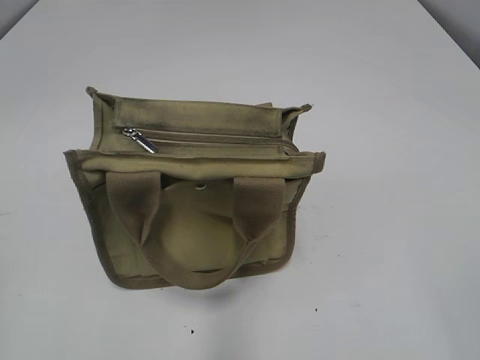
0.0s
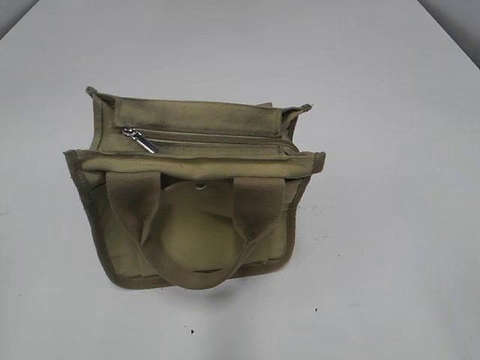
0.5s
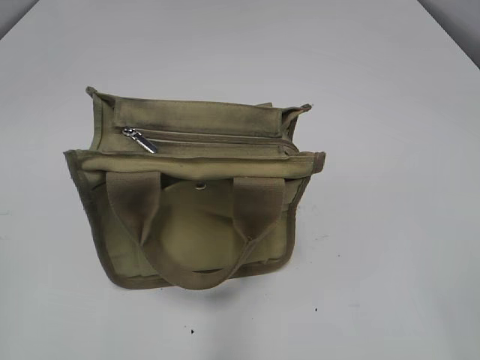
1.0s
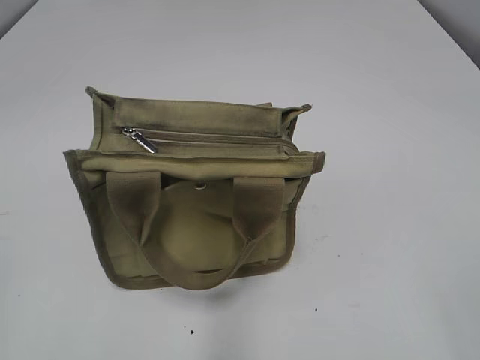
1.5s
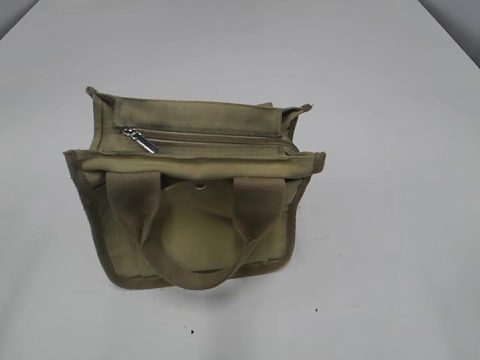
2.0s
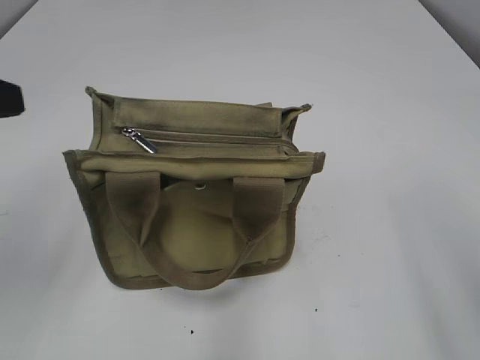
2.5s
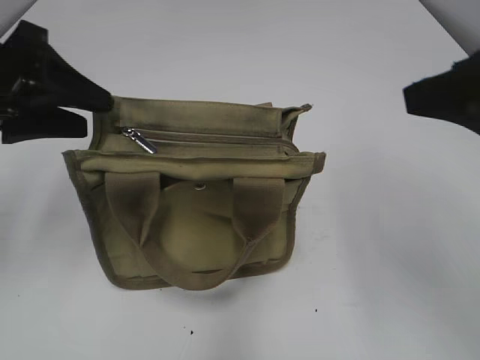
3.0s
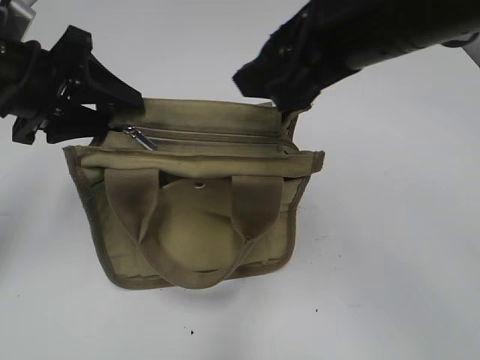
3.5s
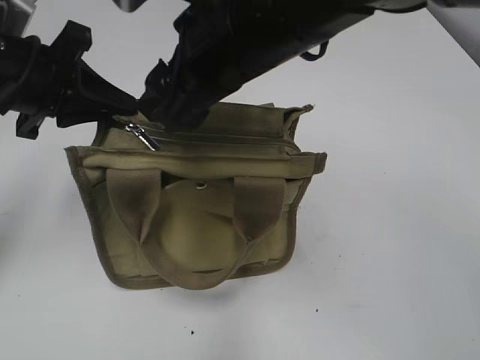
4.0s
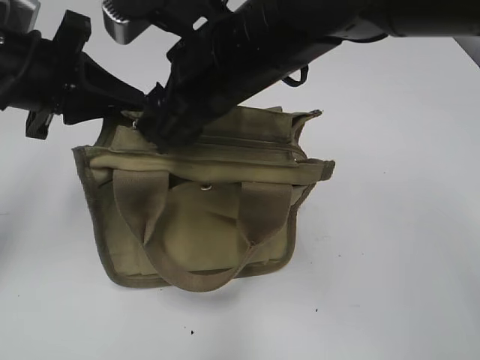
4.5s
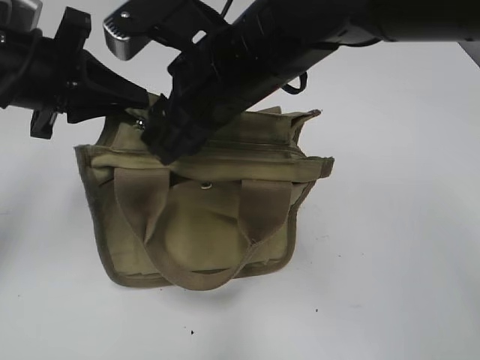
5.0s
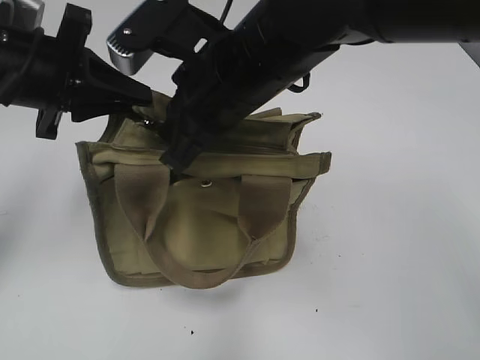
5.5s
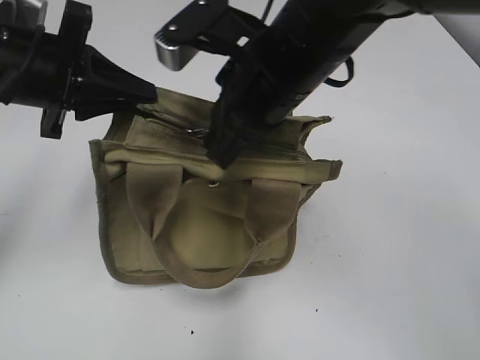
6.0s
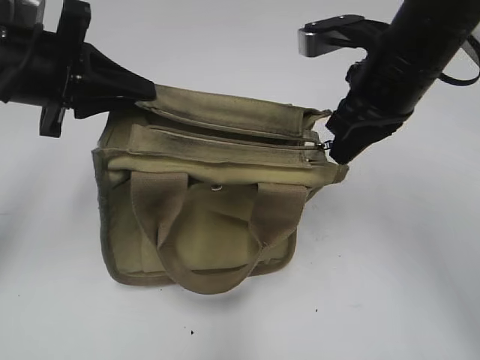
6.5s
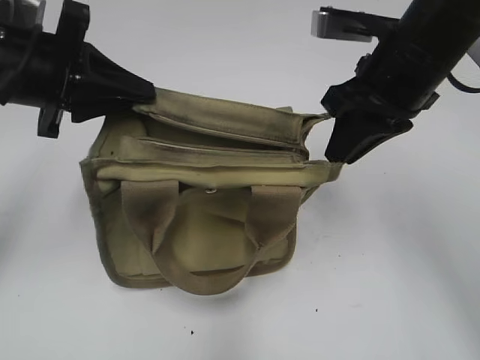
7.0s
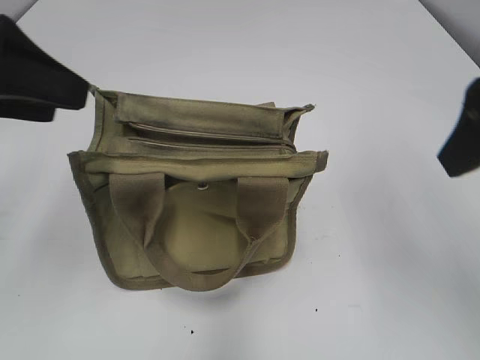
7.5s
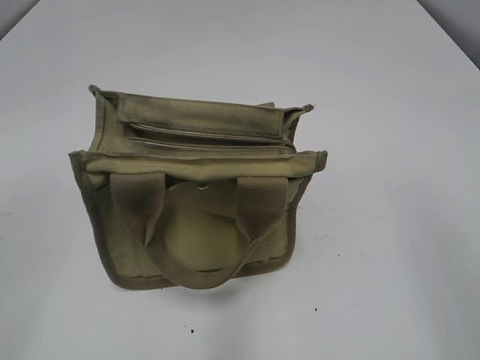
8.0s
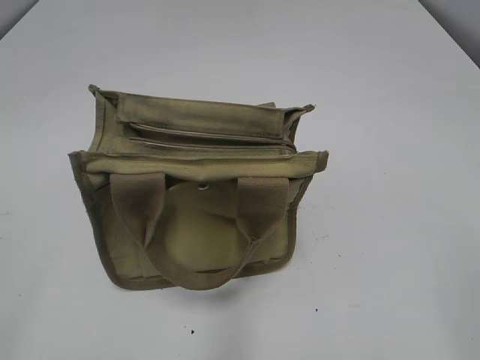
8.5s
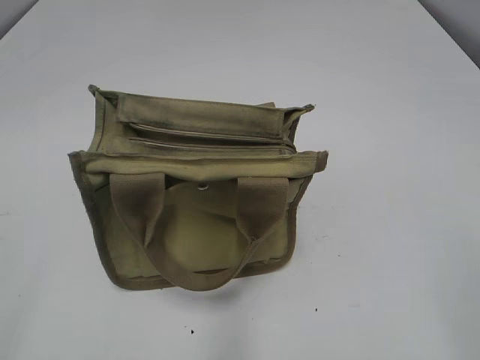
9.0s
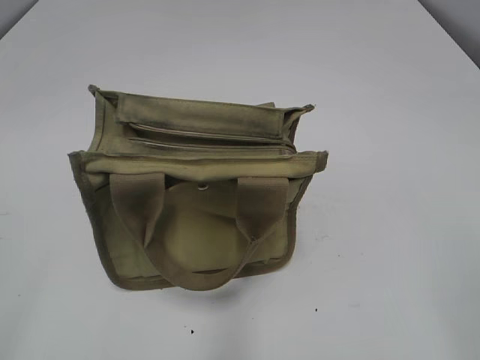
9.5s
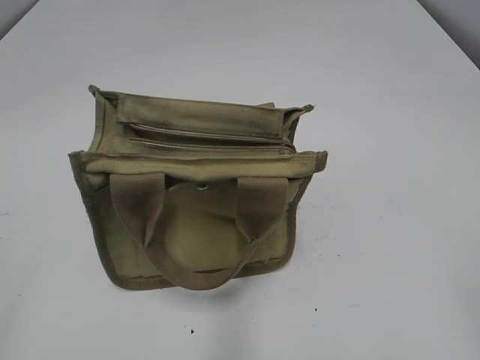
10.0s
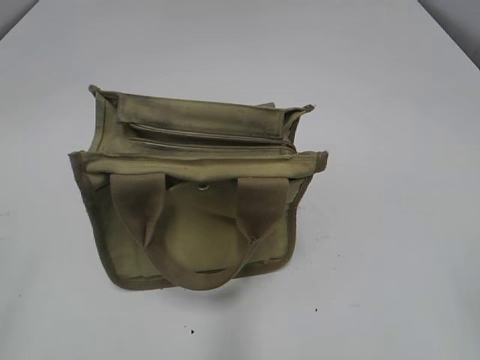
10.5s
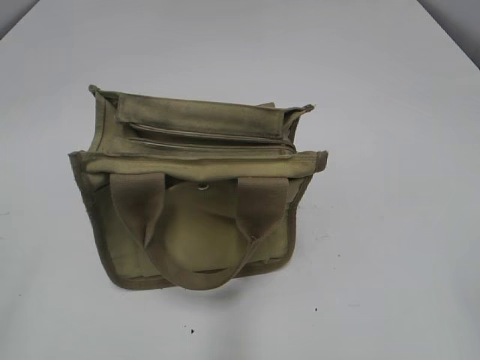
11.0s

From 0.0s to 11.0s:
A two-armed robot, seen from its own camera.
Step, from 0.0s to 6.5s: Pull open the zipper with your right hand.
From 2.0s to 3.5s: The right gripper shifts some 30 cm forward and to the left; the left gripper is displaced forward by some 25 cm.
From 3.5s to 5.5s: The left gripper closes up. The right gripper is displaced to the left and downward by approximately 10 cm, and closes.
From 5.5s to 7.5s: The left gripper moves backward and upward, about 10 cm, and opens its fingers; the right gripper travels to the right by approximately 20 cm, and opens.
From 7.5s to 9.0s: Both grippers move backward, about 20 cm.

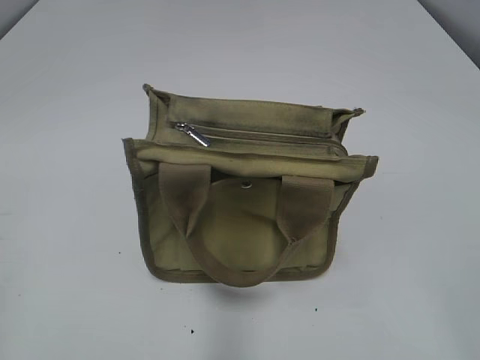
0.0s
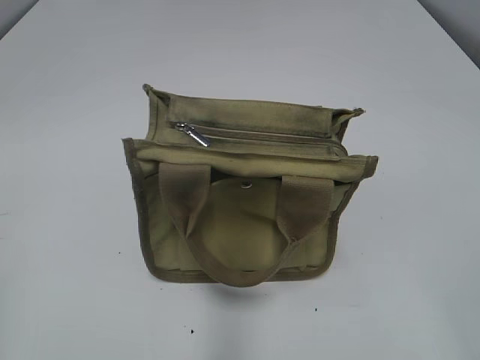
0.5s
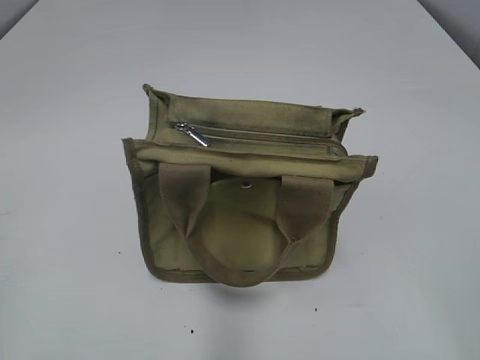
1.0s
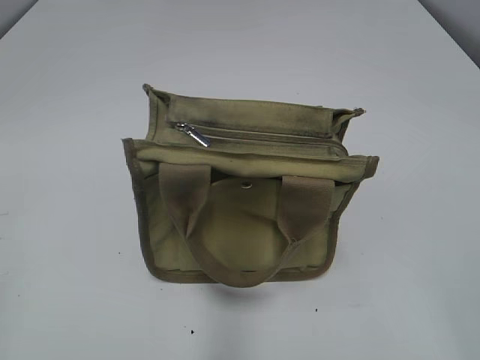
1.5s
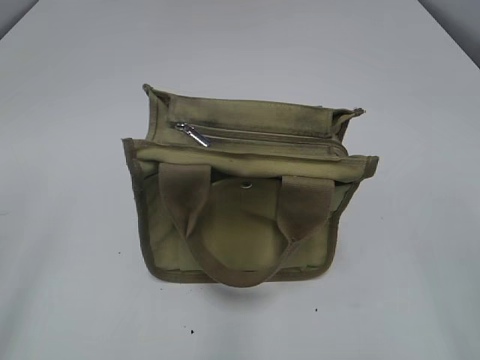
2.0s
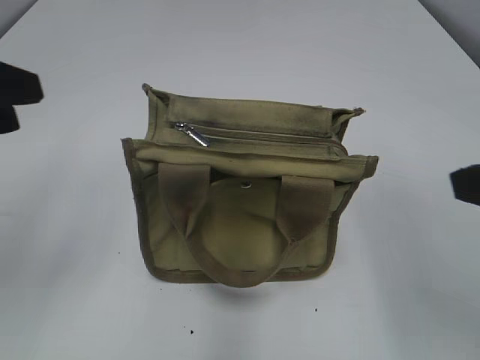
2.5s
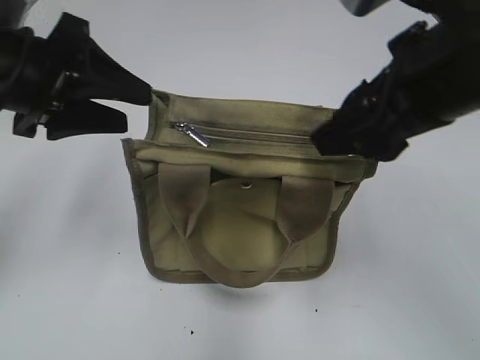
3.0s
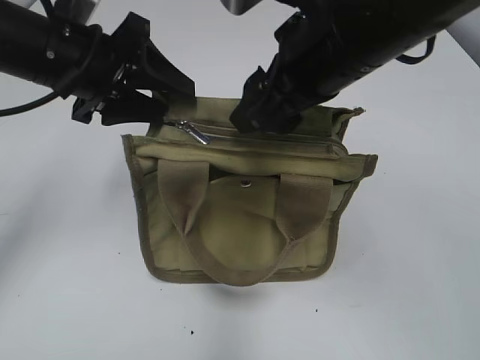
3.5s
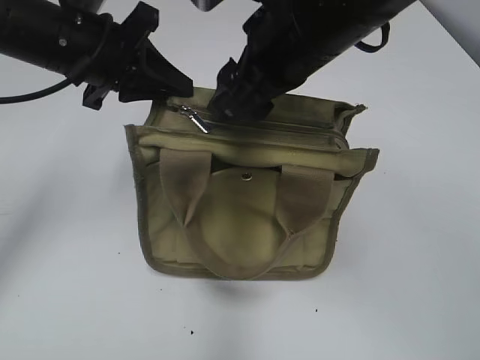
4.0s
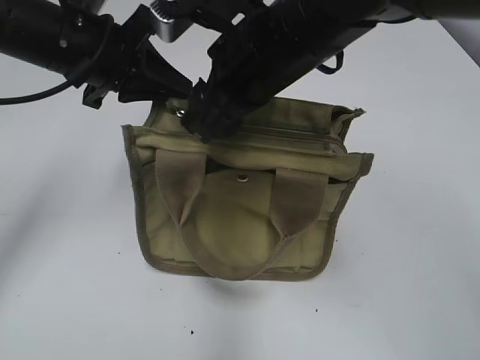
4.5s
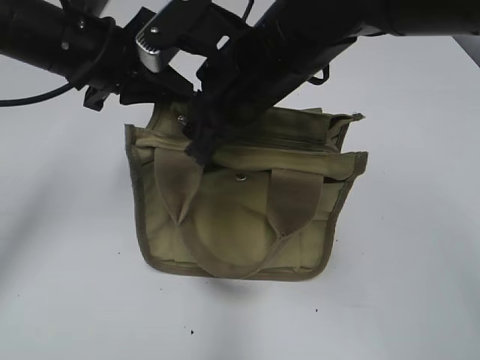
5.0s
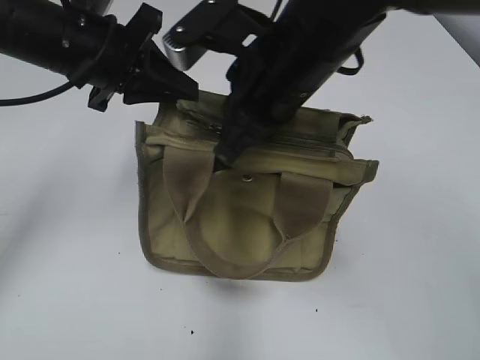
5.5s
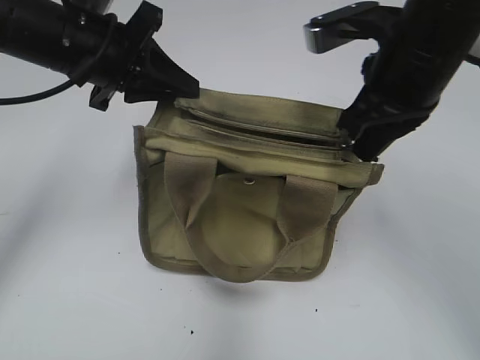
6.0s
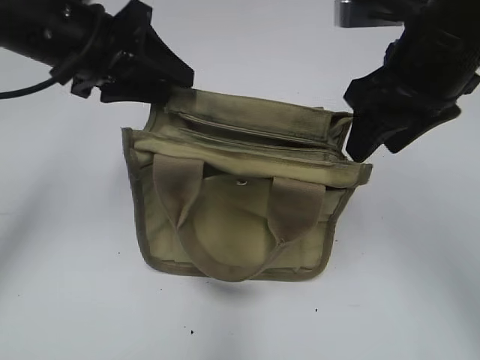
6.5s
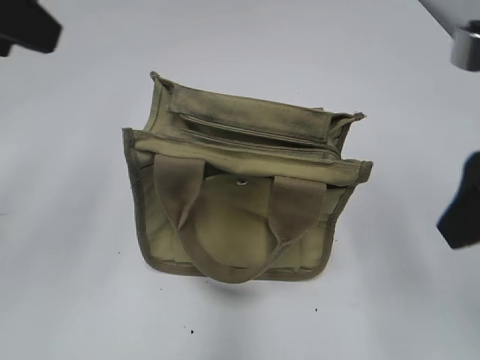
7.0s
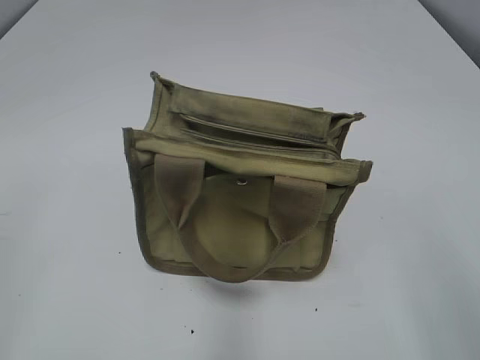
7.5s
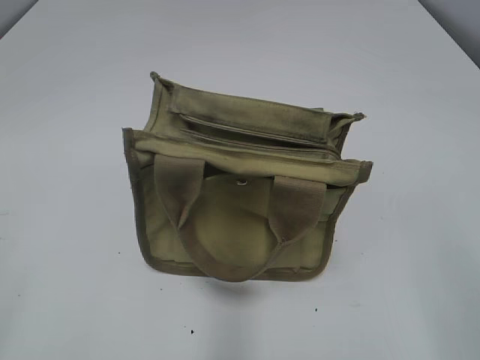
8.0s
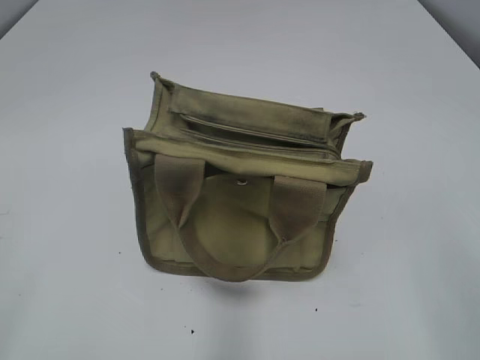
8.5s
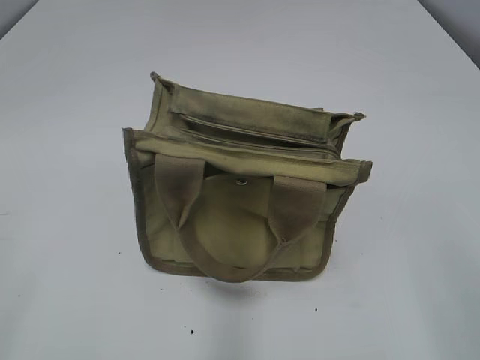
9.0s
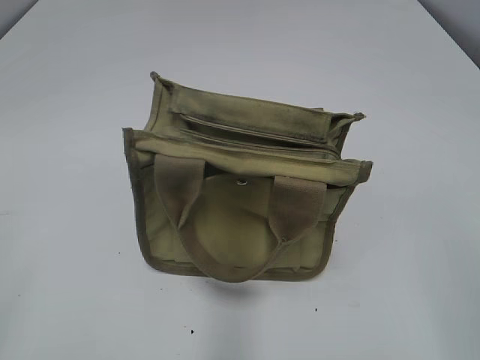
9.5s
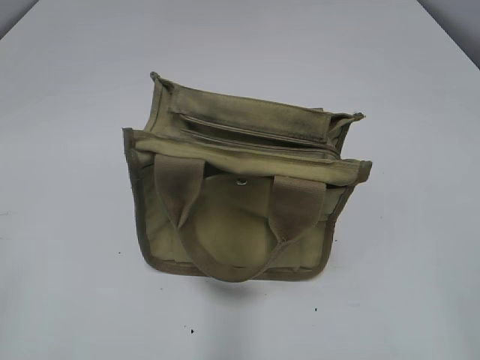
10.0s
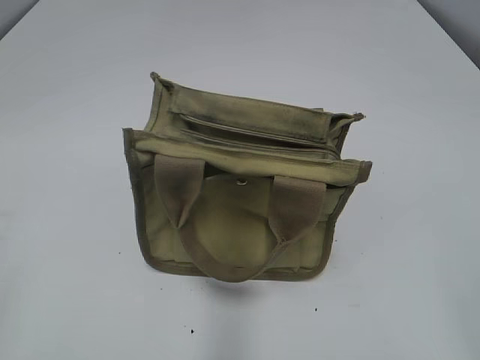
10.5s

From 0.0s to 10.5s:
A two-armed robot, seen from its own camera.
Step, from 0.0s to 6.0s: Pull open the zipper with your right hand.
From 2.0s to 4.0s: The left gripper is displaced forward and to the right by about 35 cm, and closes its fingers. The right gripper goes some 35 cm forward and to the left.
From 4.0s to 6.5s: The right gripper goes approximately 10 cm to the right, and closes, then opens again.
From 6.5s to 8.5s: The right gripper travels backward by approximately 25 cm, and opens up. The left gripper moves backward and to the left, some 35 cm, and opens its fingers.

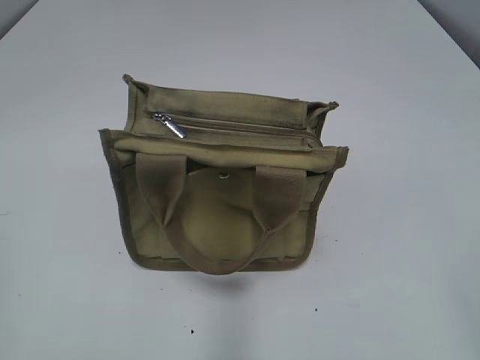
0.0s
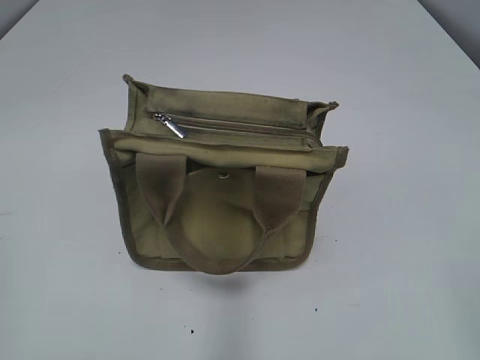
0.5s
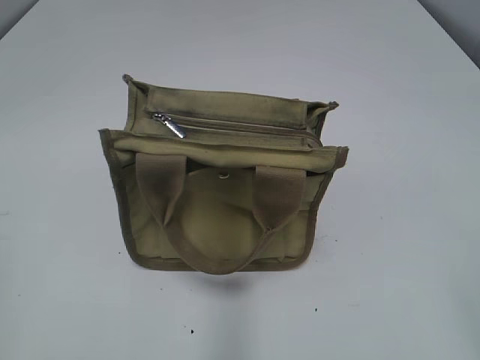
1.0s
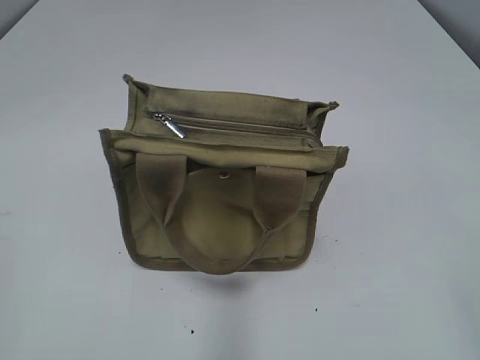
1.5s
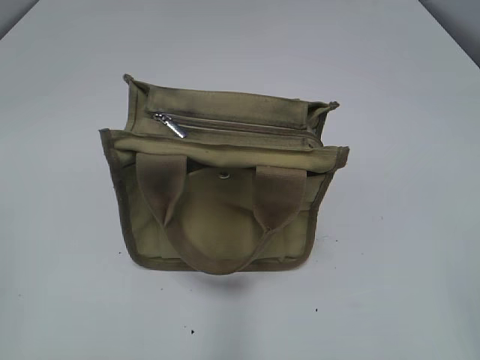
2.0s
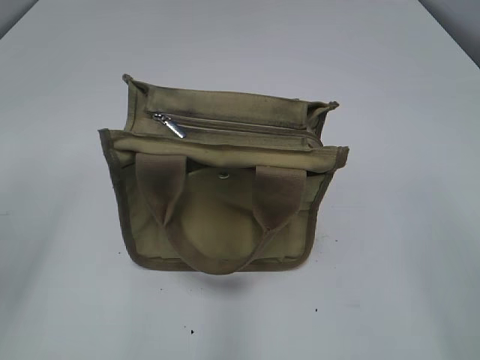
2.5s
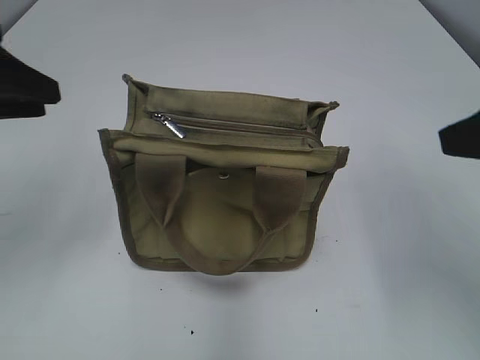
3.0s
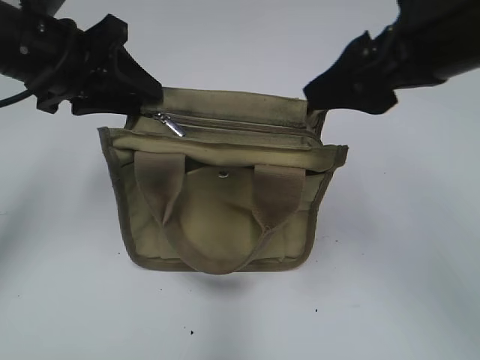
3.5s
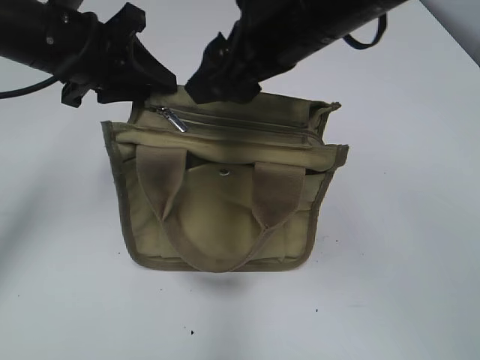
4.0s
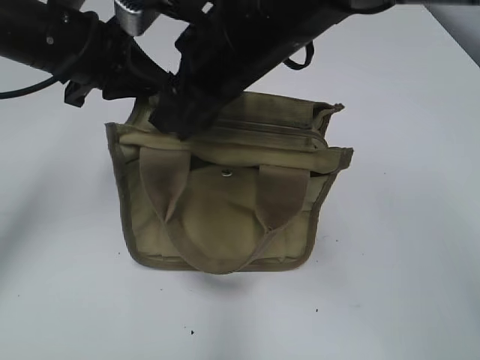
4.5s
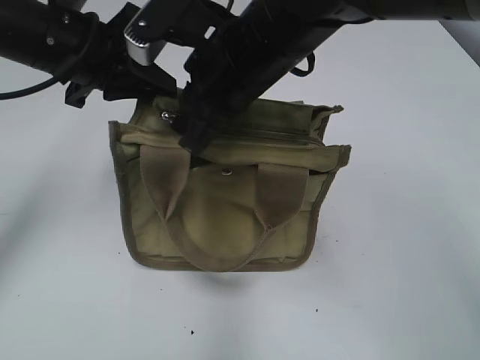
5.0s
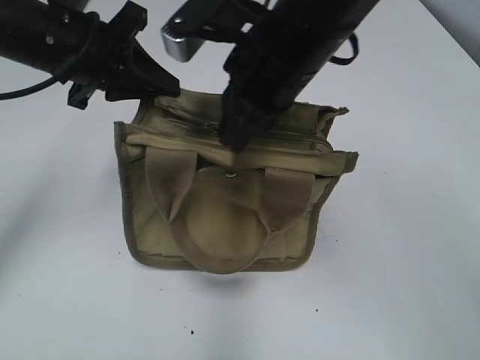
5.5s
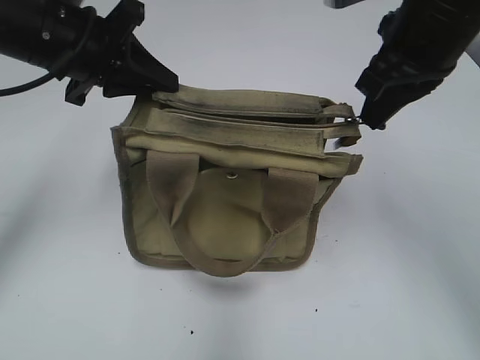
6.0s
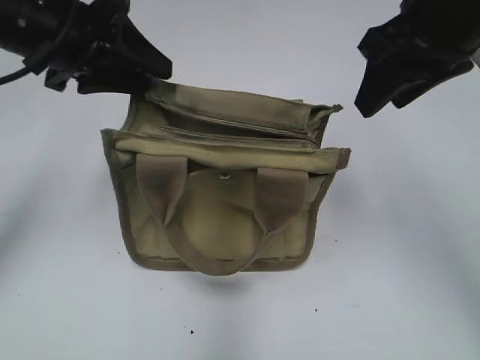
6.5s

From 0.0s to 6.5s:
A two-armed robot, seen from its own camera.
Step, from 0.0s to 6.0s: Pull open the zipper with your right hand.
From 2.0s to 4.5s: The right gripper moves forward and to the left, about 40 cm; the left gripper shifts about 35 cm forward and to the right, and closes.
From 4.5s to 6.5s: The right gripper travels to the right by some 15 cm, and closes and opens again. Meanwhile the left gripper opens up.
